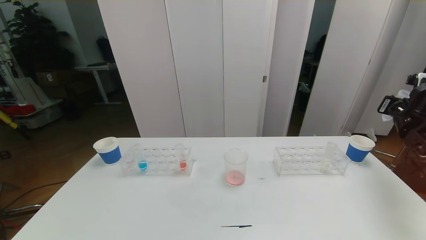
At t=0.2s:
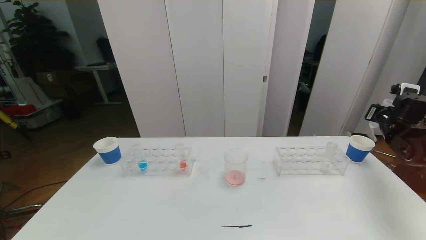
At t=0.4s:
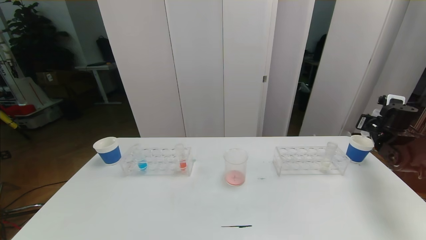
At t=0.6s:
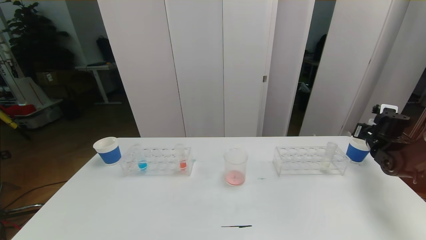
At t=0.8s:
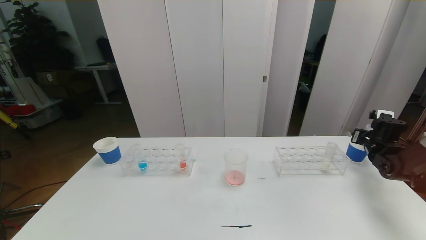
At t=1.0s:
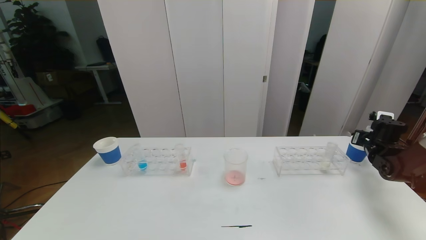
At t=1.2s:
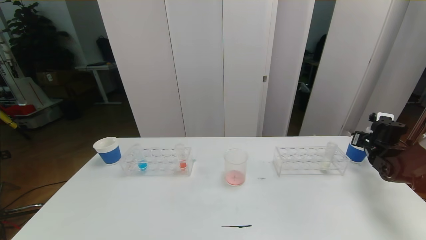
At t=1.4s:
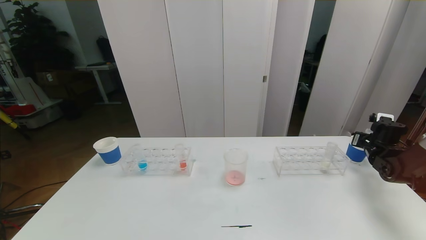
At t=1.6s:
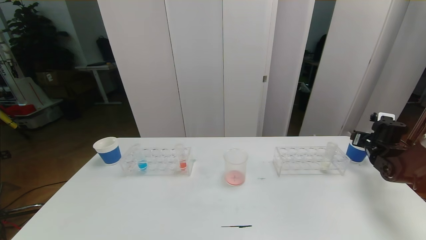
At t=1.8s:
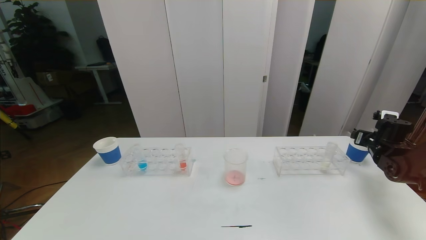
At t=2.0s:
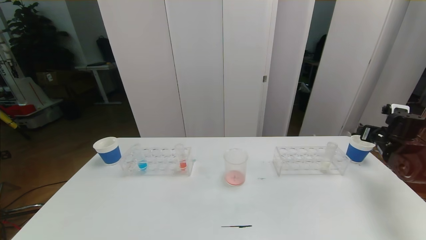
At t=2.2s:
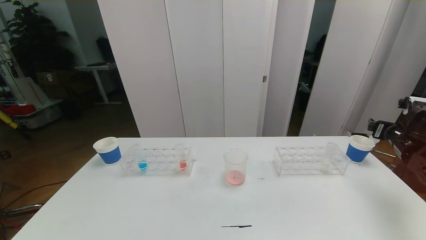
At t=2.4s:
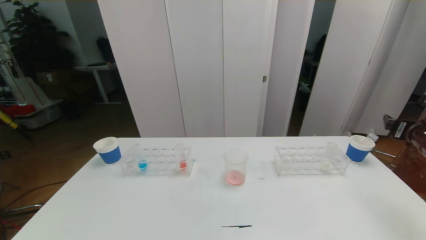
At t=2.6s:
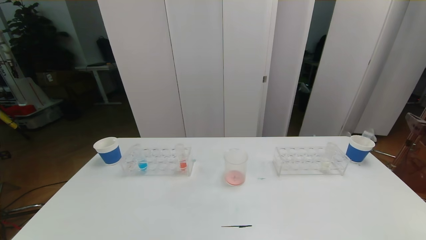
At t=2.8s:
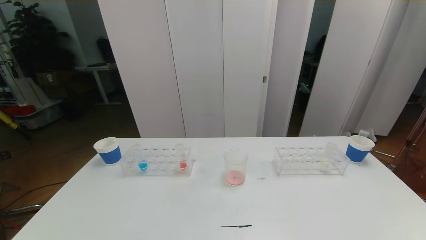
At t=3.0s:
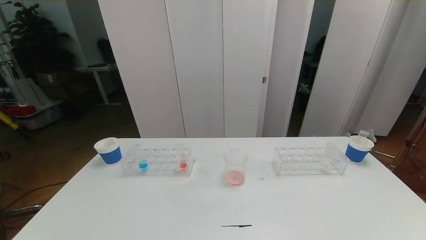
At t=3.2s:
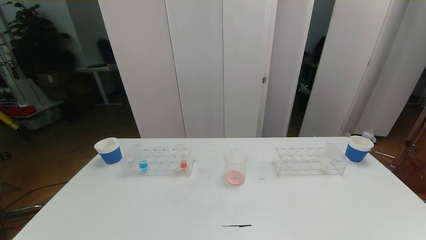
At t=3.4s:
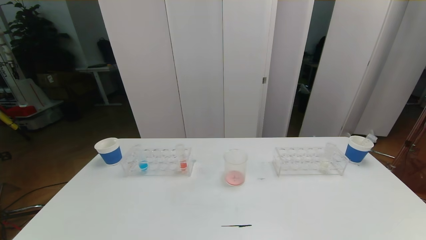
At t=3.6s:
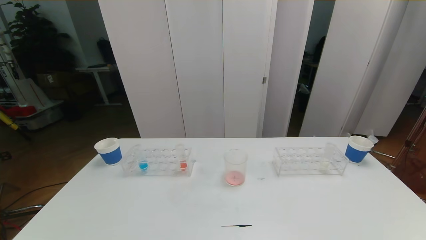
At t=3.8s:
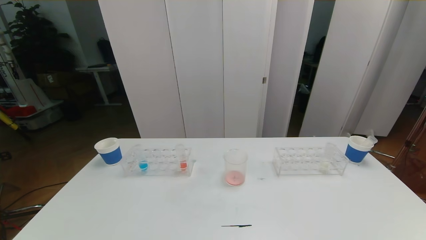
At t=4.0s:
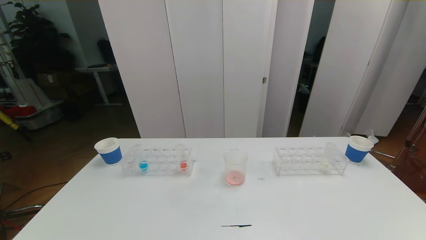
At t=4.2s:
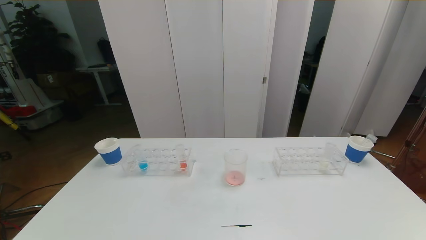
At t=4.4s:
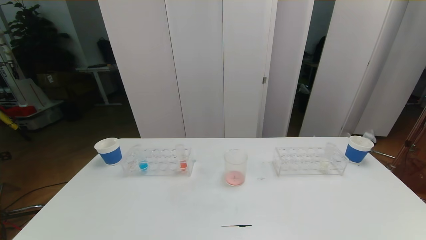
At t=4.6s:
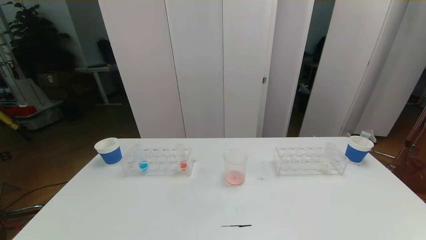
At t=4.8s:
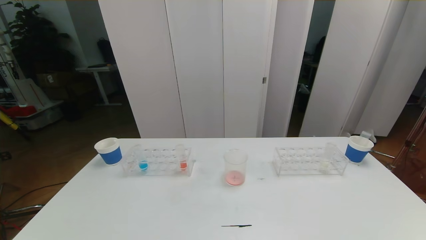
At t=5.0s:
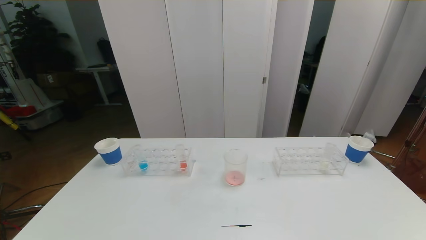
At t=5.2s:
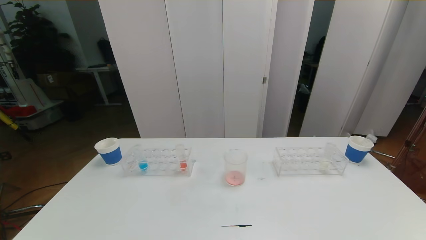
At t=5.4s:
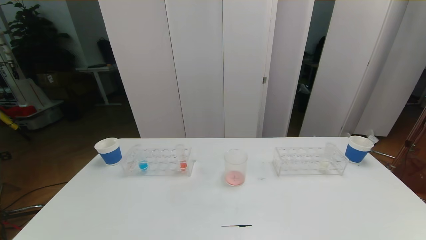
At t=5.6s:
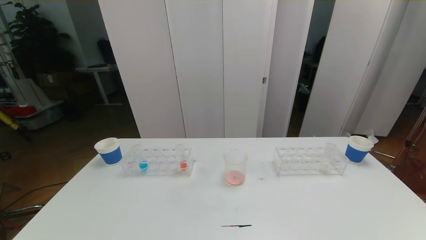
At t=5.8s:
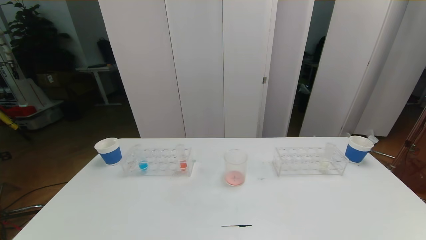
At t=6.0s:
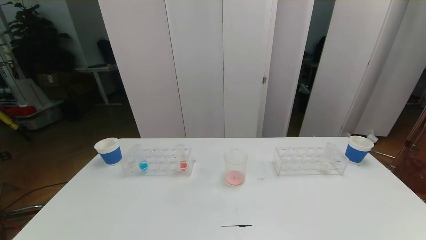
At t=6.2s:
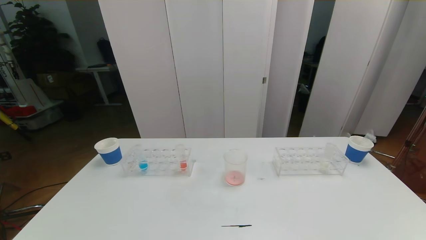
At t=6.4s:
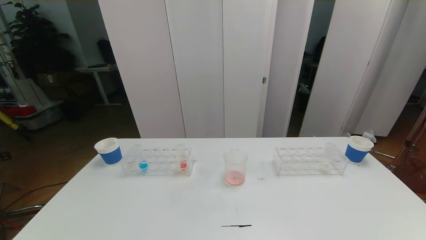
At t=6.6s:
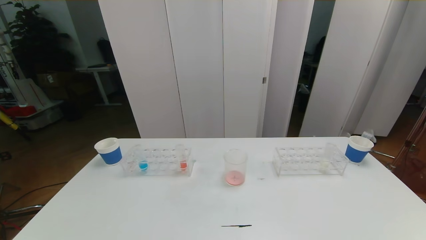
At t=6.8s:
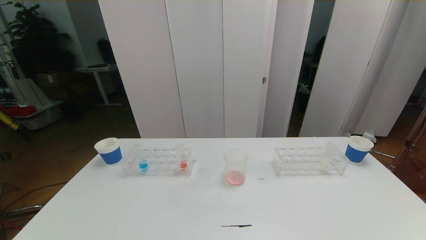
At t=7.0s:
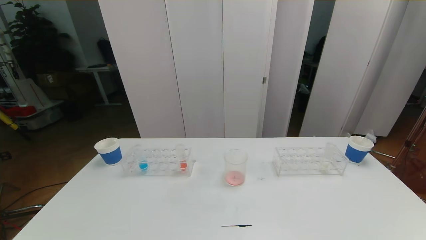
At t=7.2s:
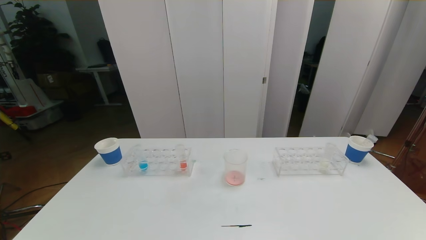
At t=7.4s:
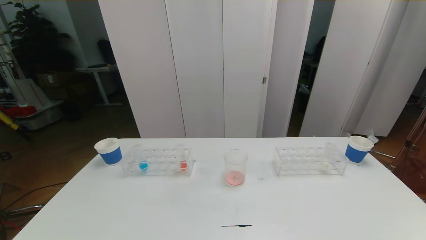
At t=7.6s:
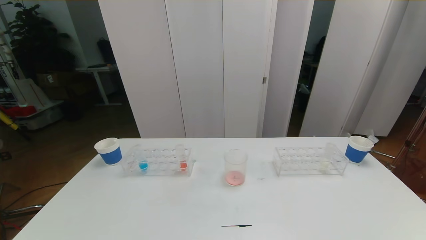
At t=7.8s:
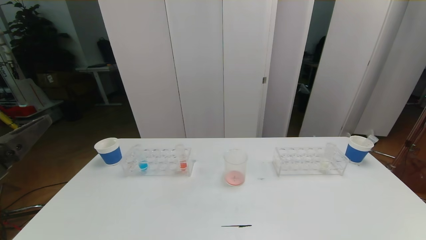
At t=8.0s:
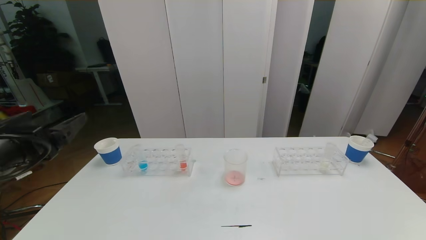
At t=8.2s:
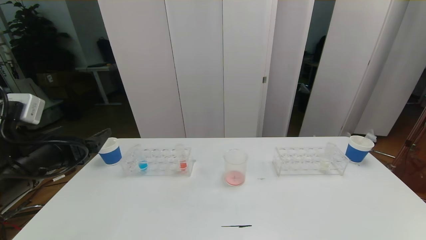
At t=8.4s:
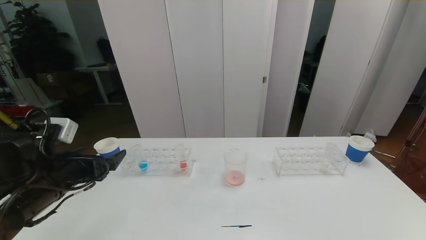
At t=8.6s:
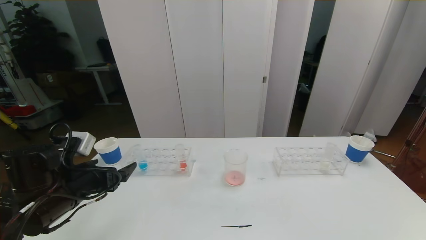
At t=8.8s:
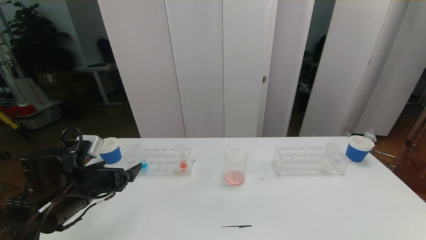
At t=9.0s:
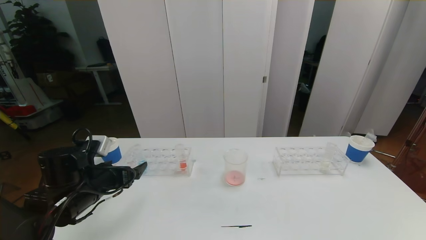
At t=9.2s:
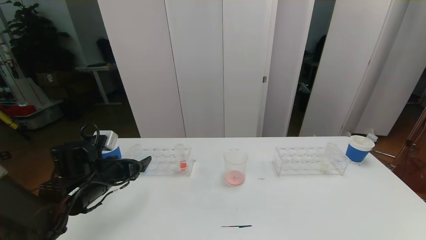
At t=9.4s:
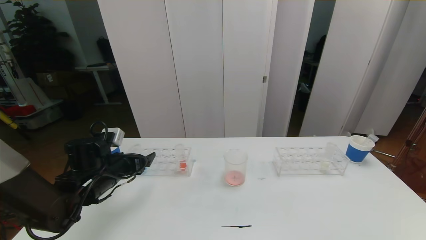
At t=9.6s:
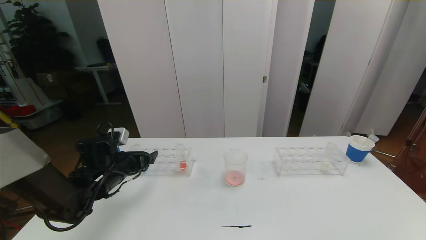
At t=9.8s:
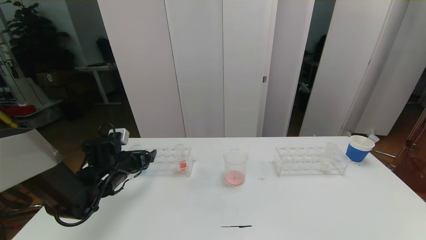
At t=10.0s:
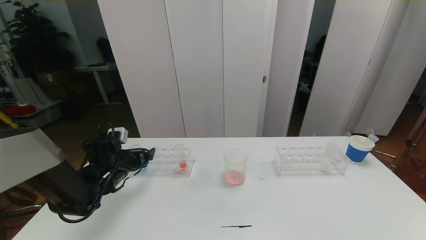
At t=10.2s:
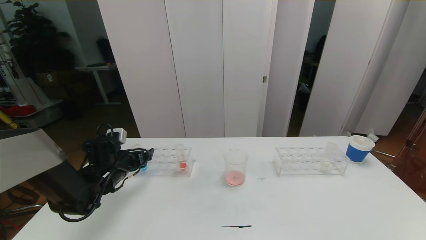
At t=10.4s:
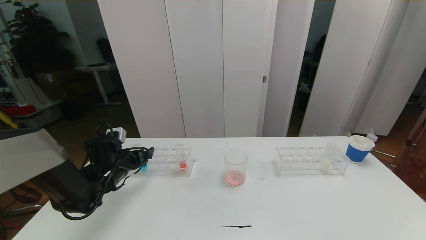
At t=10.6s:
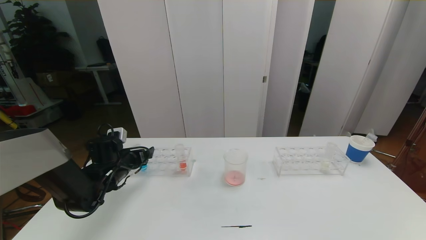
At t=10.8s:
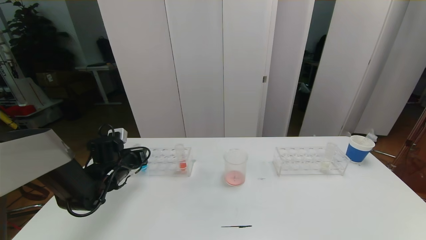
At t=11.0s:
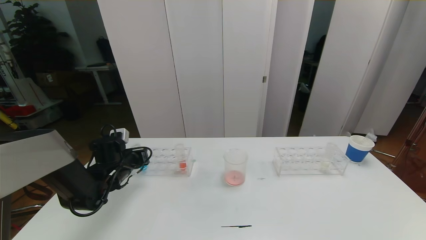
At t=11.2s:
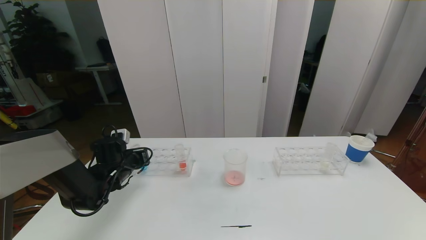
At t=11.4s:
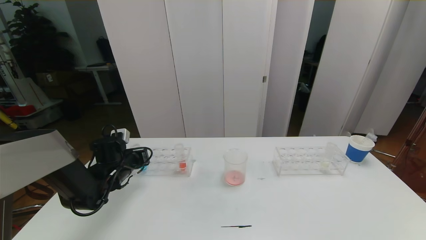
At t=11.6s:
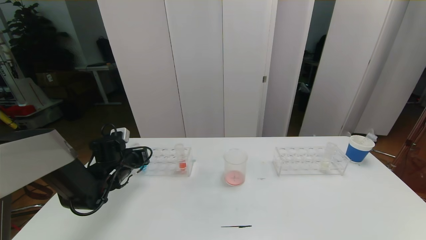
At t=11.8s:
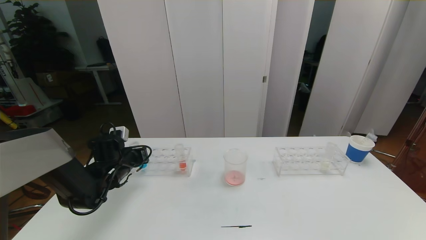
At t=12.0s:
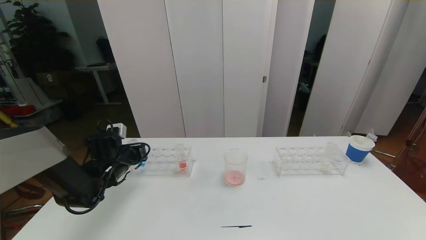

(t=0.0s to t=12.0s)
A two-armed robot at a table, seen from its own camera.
Task of the whole recording: pick up the test tube with red pigment the test tube with blue pigment and the test tube with white pigment by grippers and pour them into the beaker.
Step, t=0.0s - t=3.8s: Pour the red reagent into the graduated cylinder and place the test tube into the paper cup.
t=0.0s - t=1.6s: The right gripper moves downward, some 10 cm, and opens its fingers.
t=1.6s - t=3.0s: The right gripper goes approximately 40 cm backward and upward.
t=4.4s - t=6.0s: Both grippers stay about where they are.
t=7.6s - t=9.0s: The left gripper is displaced forward and downward by about 25 cm.
t=9.0s - t=10.4s: The left gripper is displaced forward by about 10 cm.
t=10.4s - t=12.0s: The left gripper closes.

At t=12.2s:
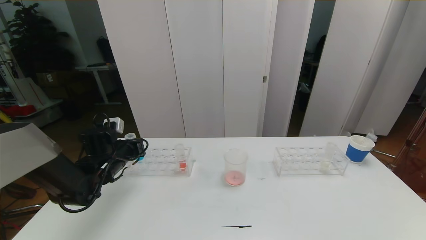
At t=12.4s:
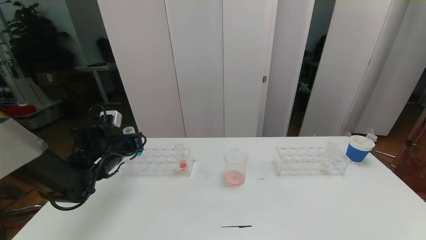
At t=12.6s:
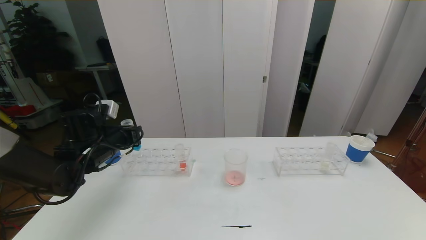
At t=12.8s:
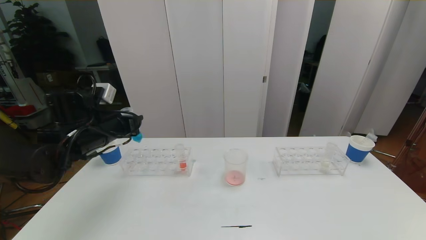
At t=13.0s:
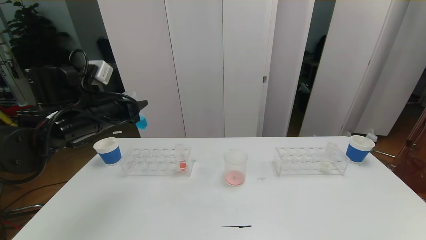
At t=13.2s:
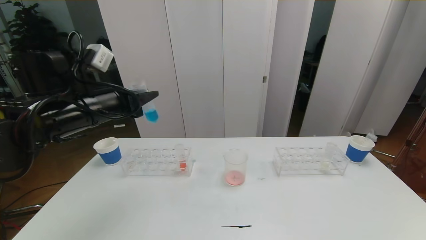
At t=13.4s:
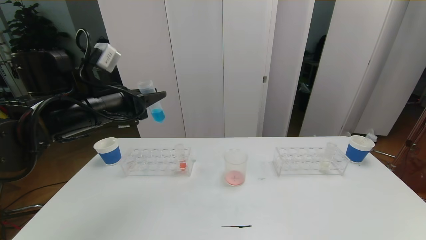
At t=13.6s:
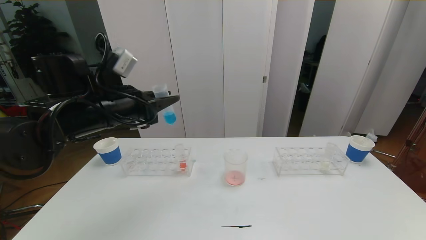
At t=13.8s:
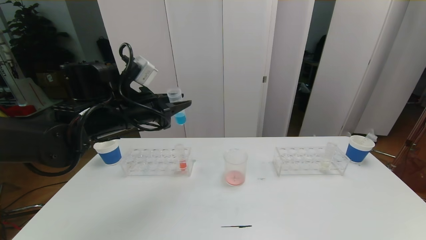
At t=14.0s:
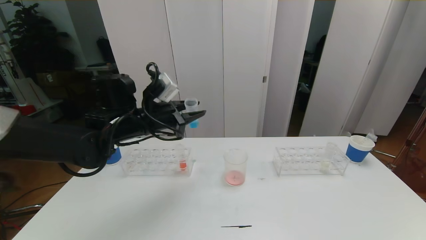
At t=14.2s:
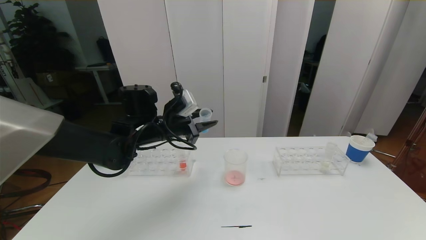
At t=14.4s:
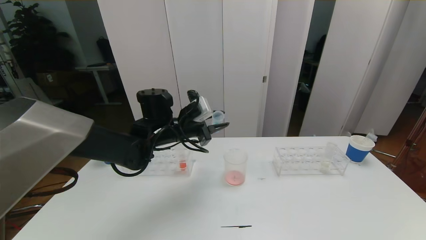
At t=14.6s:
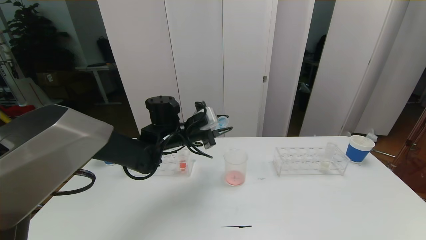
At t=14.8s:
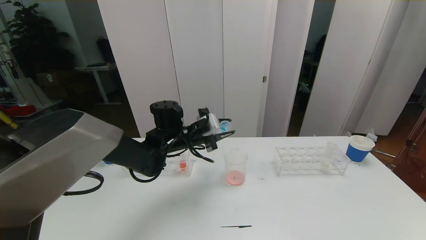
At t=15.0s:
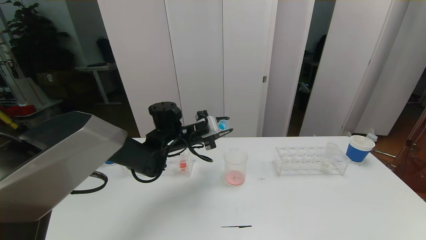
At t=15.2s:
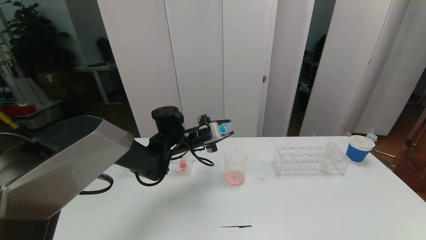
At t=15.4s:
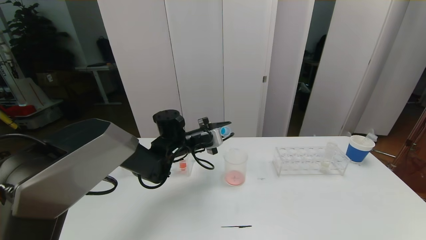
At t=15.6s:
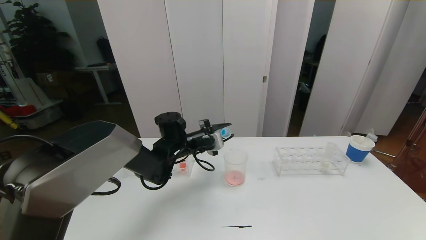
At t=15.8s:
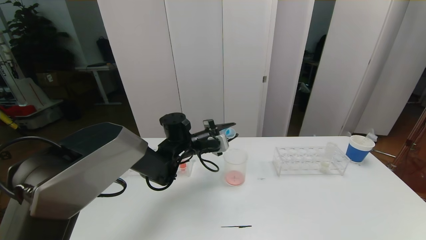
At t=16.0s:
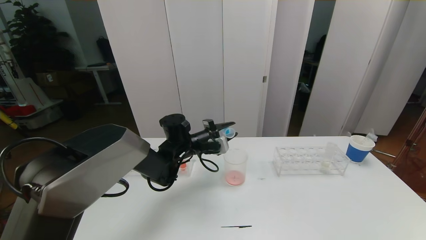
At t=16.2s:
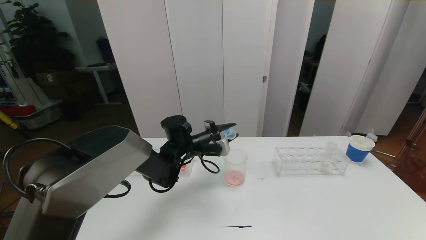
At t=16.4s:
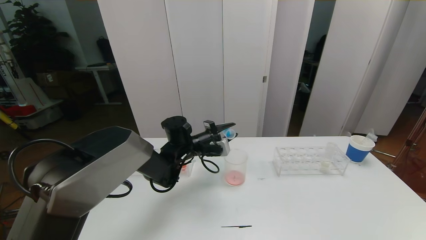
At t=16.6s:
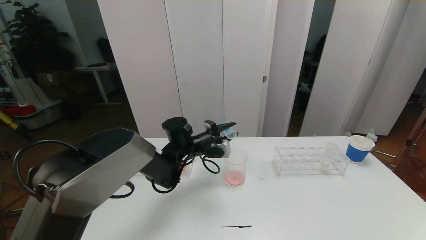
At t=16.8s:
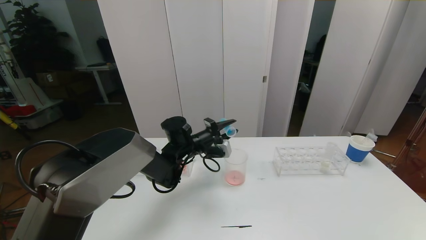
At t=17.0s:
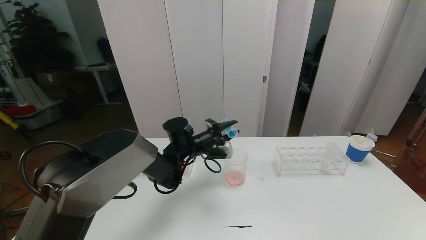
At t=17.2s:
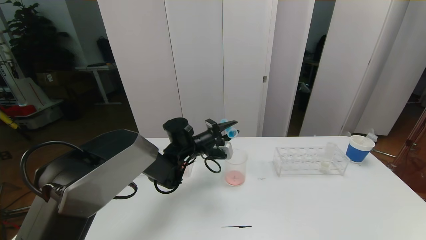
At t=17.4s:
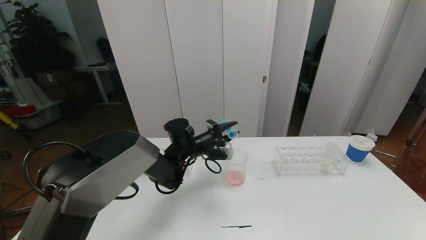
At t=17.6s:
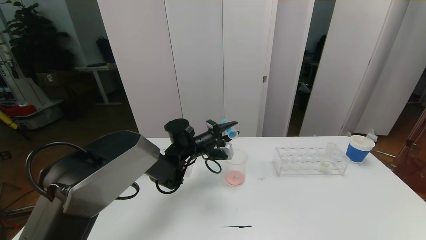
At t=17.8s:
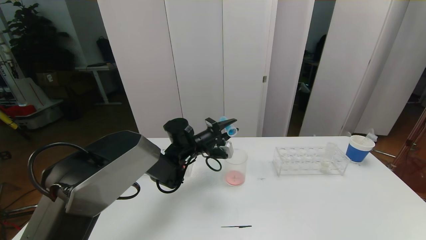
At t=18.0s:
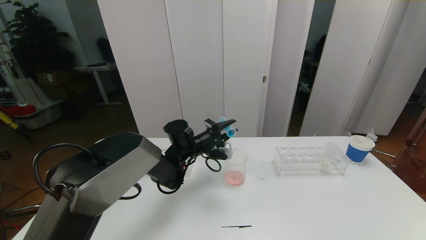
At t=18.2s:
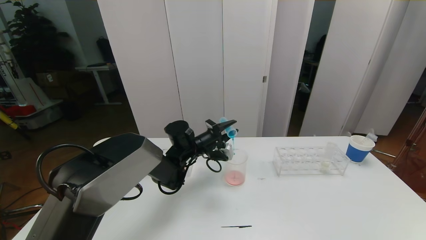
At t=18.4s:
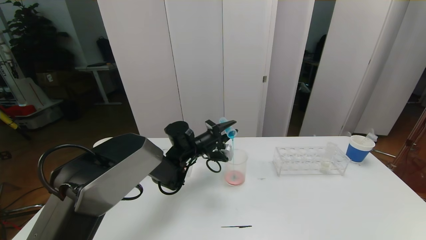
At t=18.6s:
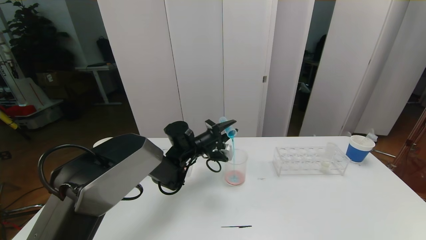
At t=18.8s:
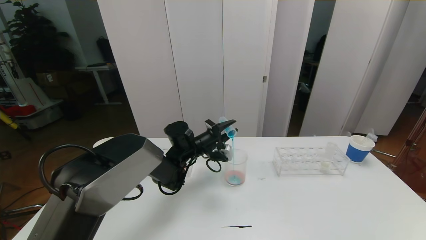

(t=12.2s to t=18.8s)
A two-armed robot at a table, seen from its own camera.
Task of the whole recording: pick up the test tube with red pigment the test tube with blue pigment and the test tube with white pigment by grippers and pour them into the beaker.
t=12.2s - t=13.8s: The left gripper moves upward and to the right, some 15 cm.
t=13.8s - t=15.4s: The left gripper moves downward, to the right and forward, some 15 cm.
t=17.2s - t=18.8s: The grippers make only small movements.
